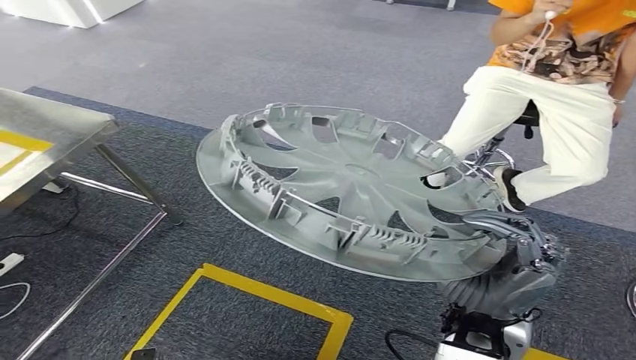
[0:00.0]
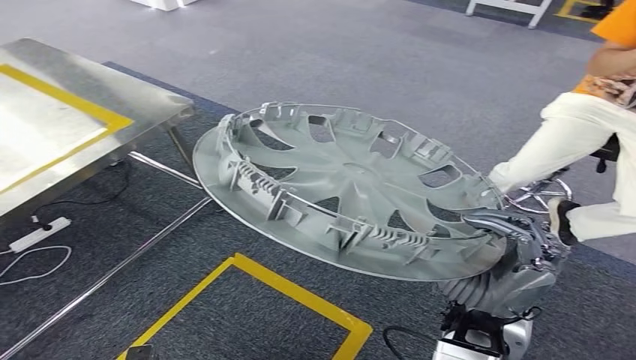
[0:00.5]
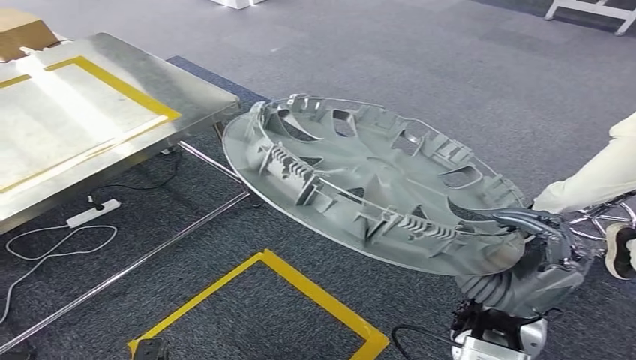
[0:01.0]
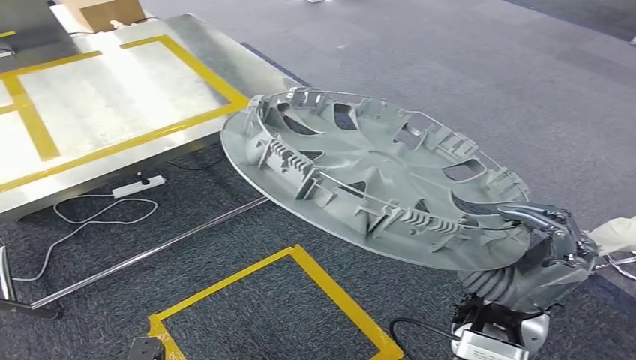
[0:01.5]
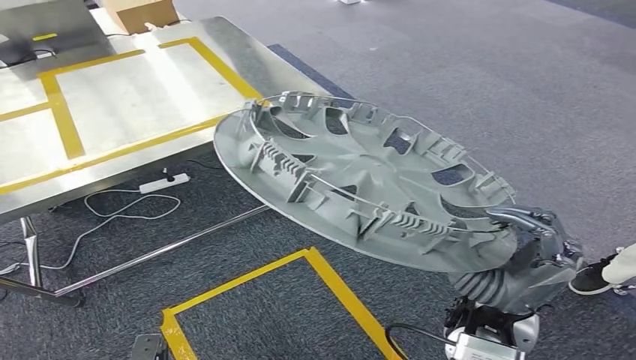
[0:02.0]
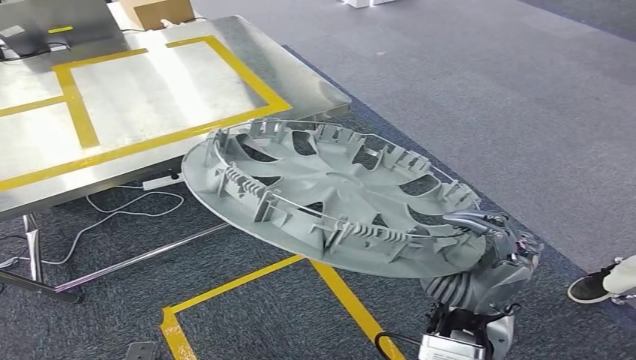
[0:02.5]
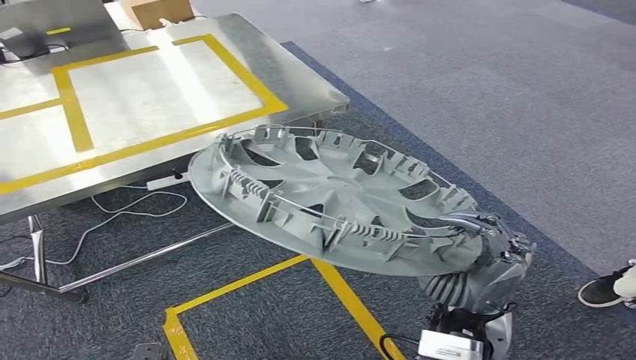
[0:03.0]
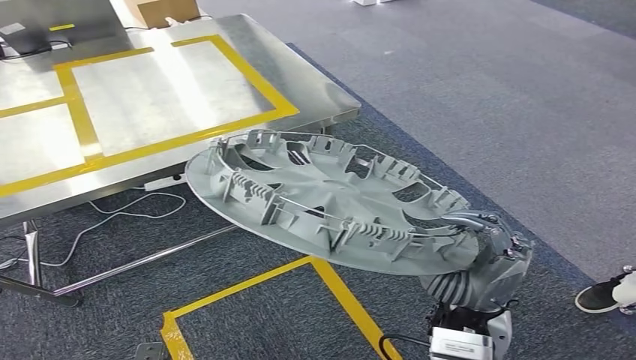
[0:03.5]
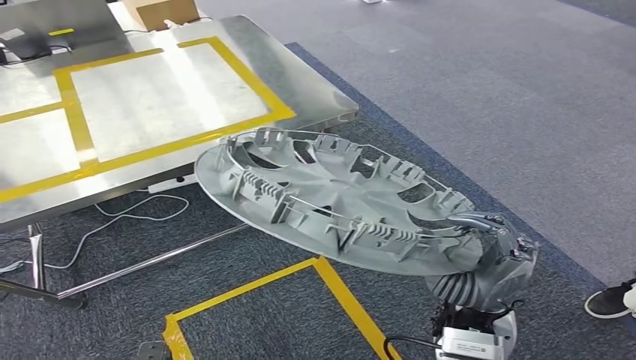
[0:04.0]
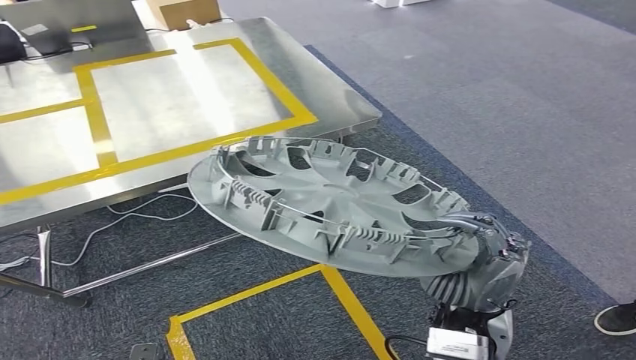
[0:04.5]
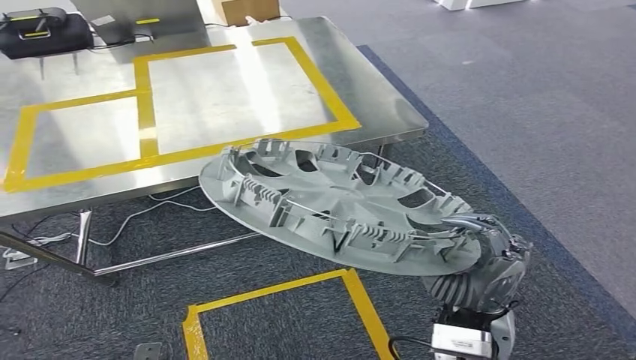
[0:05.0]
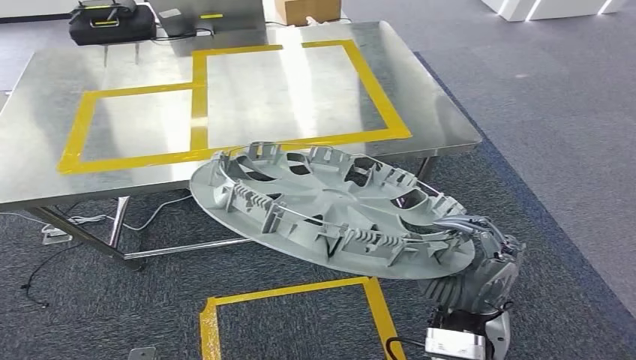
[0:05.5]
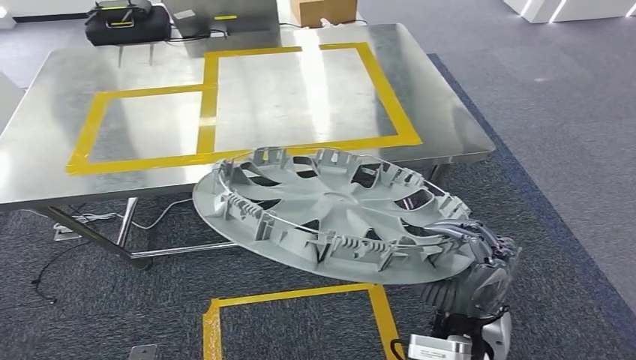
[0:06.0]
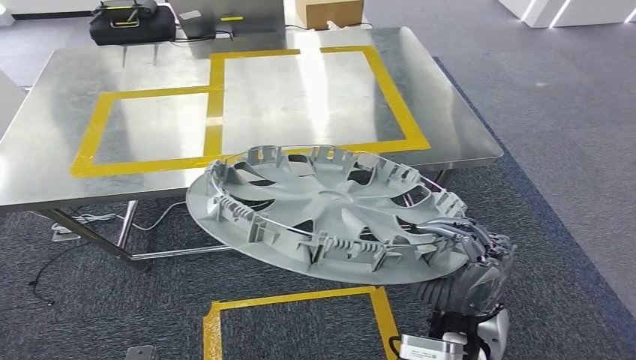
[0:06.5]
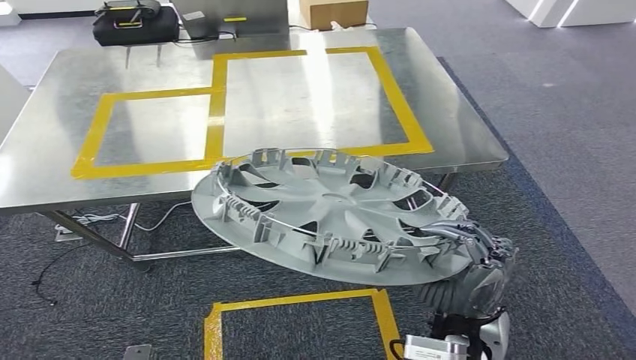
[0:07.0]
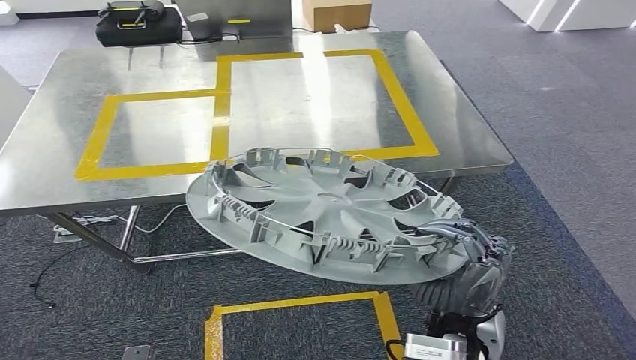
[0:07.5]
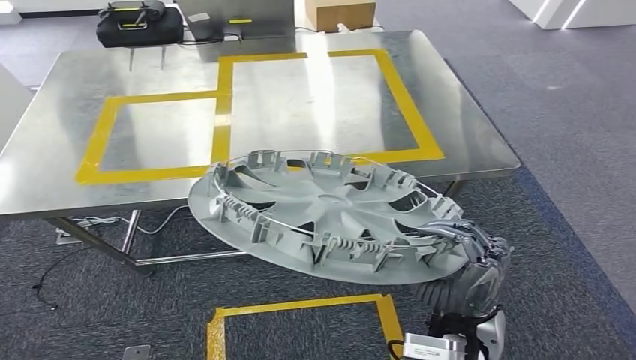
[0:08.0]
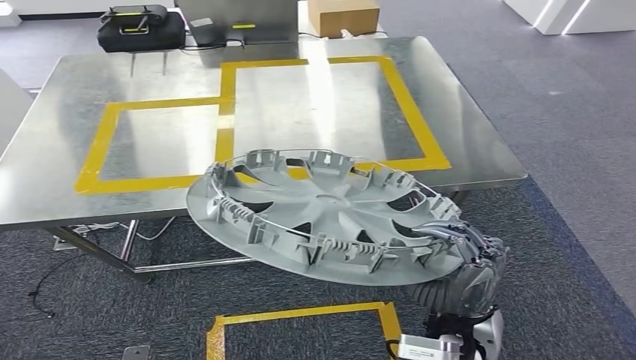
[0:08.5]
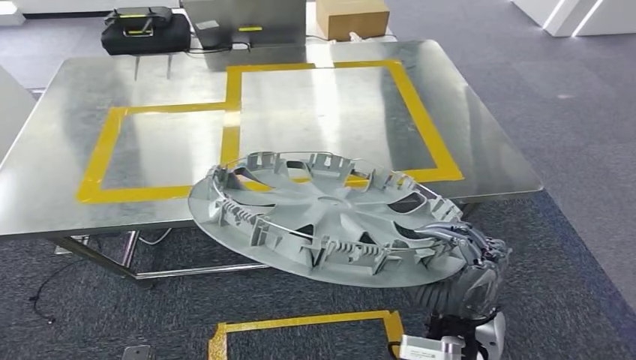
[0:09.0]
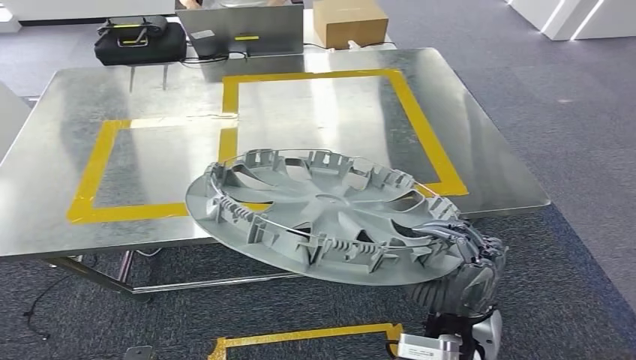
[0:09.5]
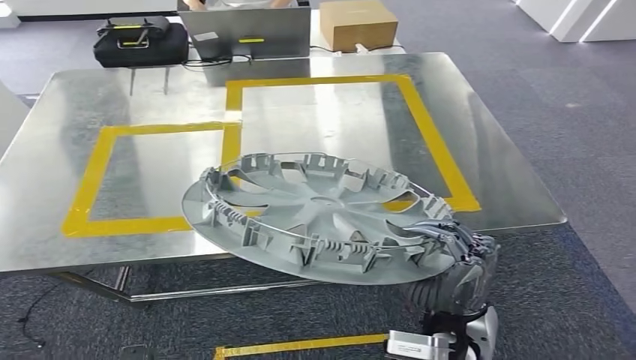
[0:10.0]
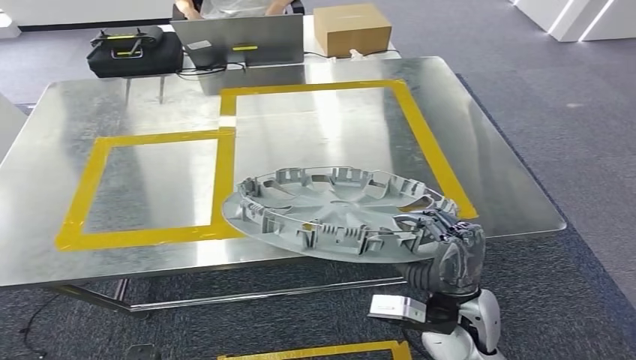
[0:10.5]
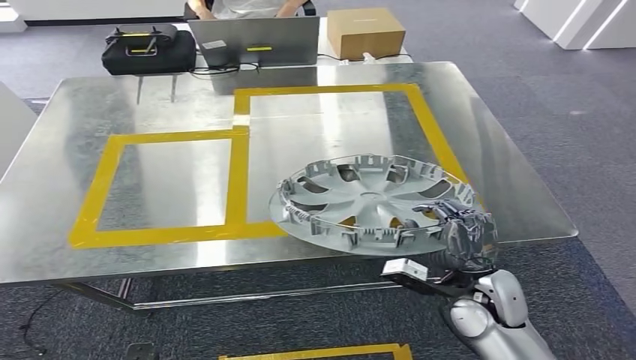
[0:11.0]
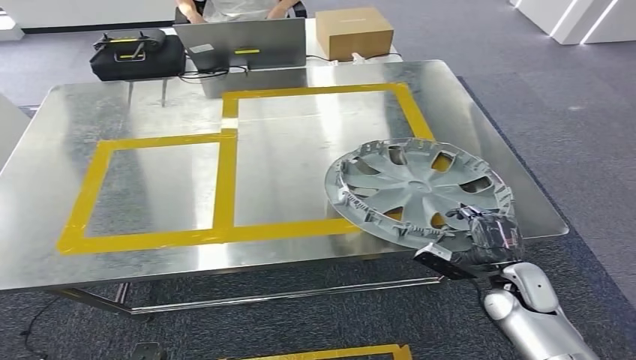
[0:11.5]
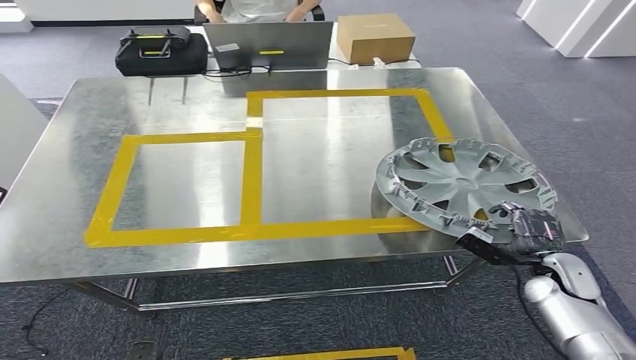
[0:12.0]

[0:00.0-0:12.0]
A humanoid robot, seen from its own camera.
Step, 0:00.0 to 0:03.5: Move the small component to the workbench.

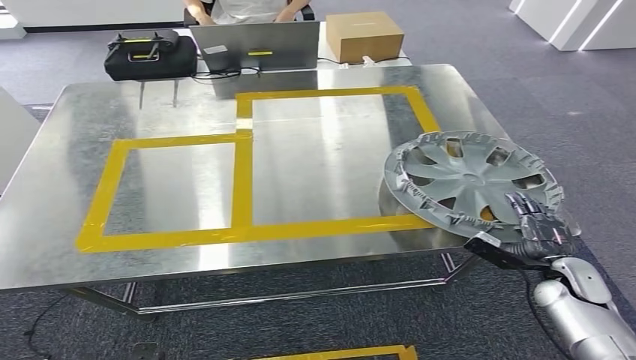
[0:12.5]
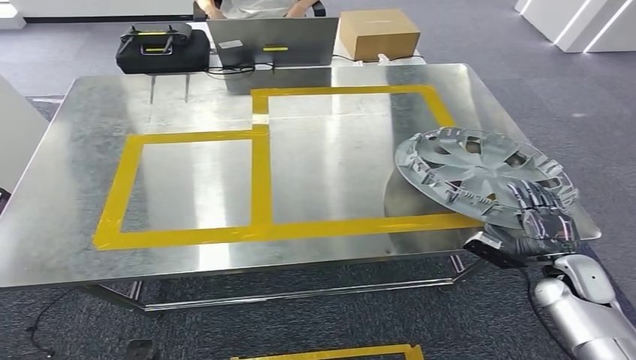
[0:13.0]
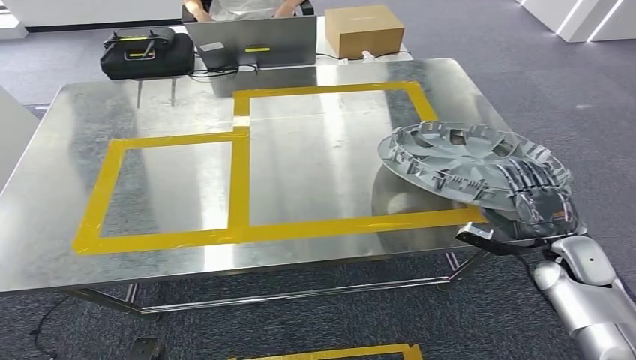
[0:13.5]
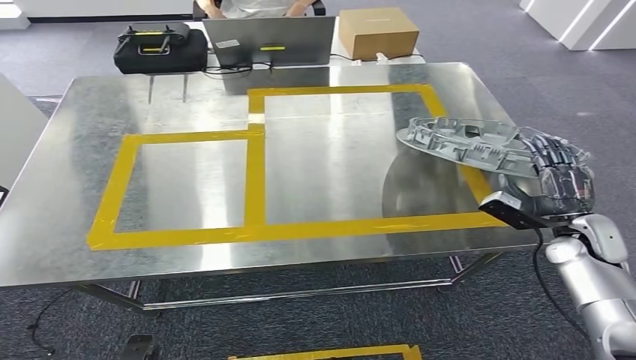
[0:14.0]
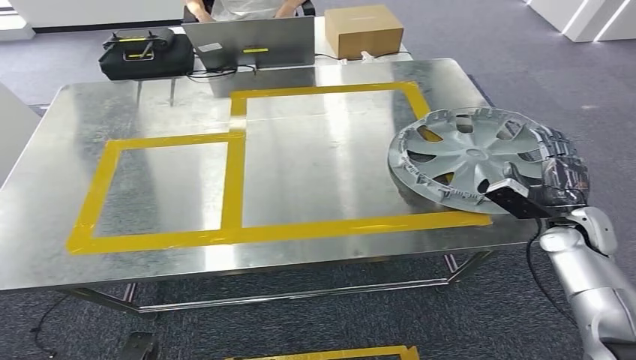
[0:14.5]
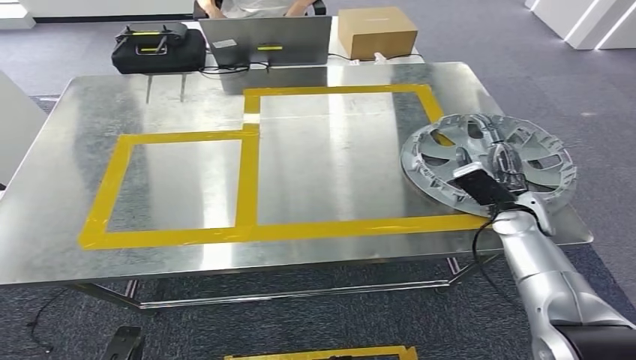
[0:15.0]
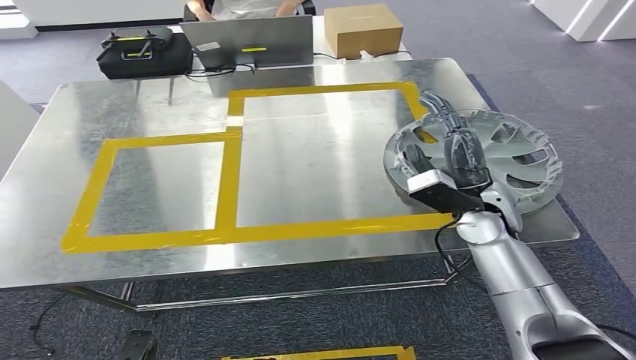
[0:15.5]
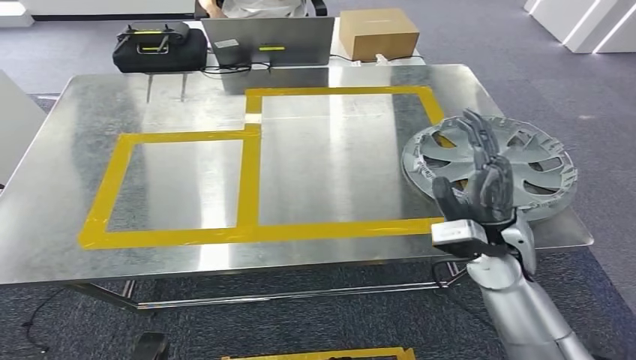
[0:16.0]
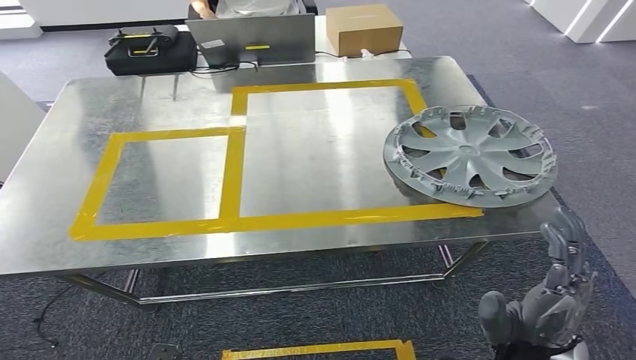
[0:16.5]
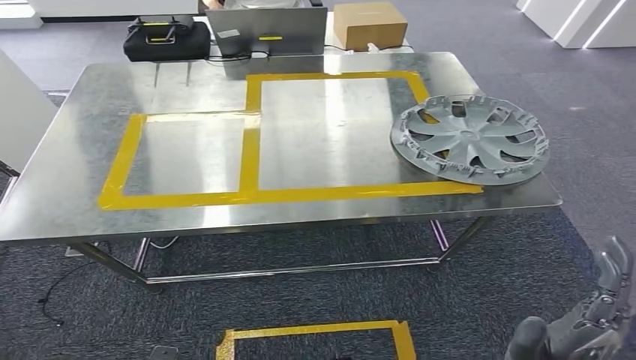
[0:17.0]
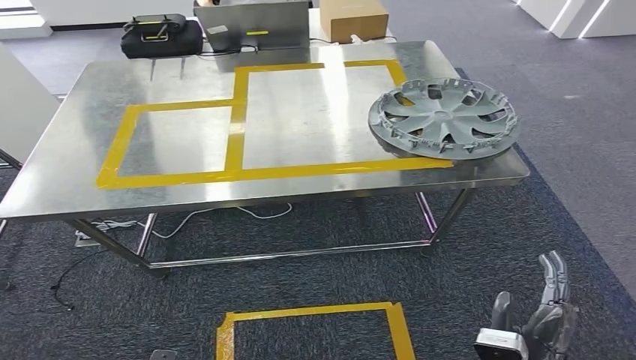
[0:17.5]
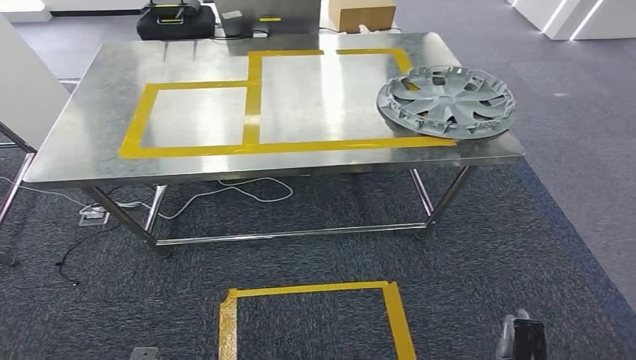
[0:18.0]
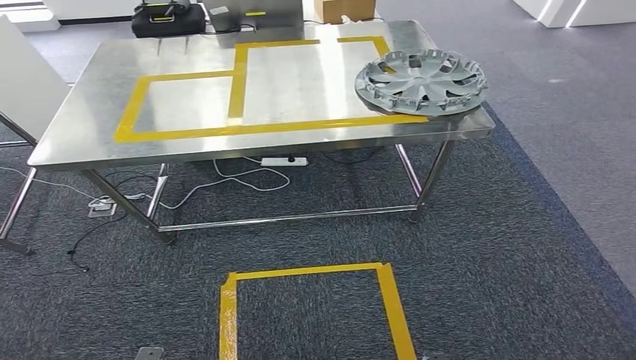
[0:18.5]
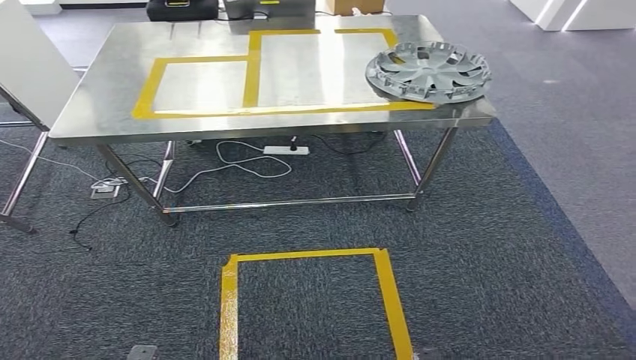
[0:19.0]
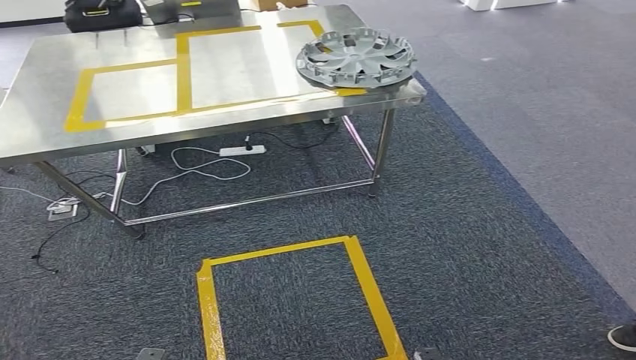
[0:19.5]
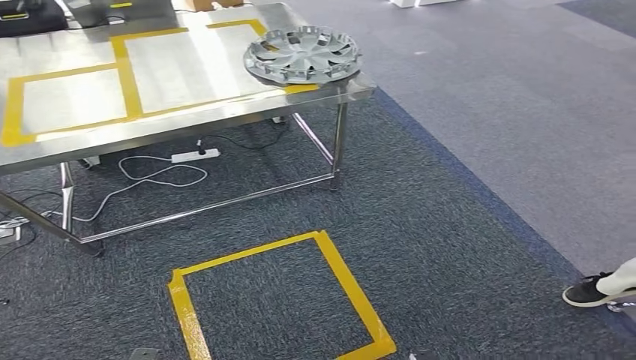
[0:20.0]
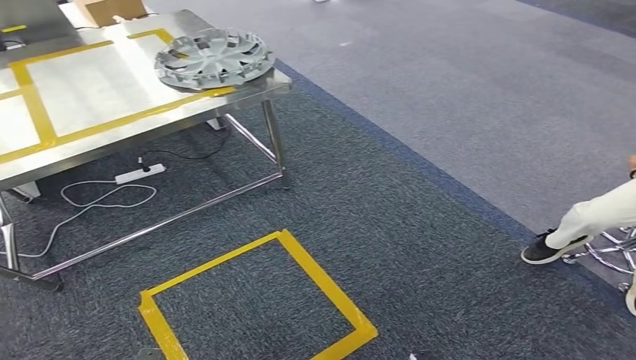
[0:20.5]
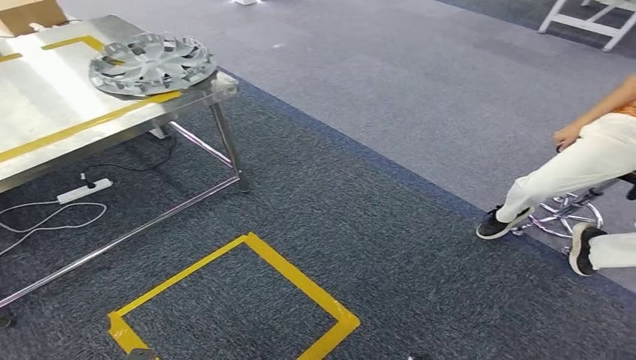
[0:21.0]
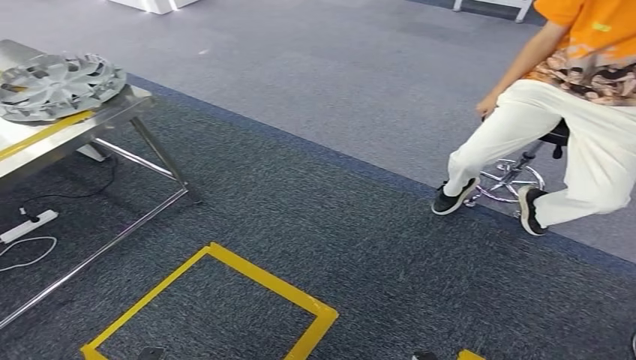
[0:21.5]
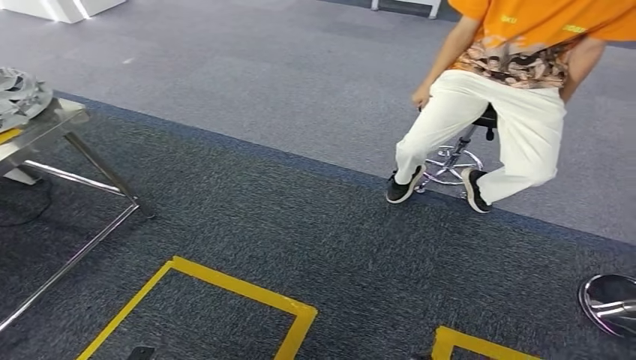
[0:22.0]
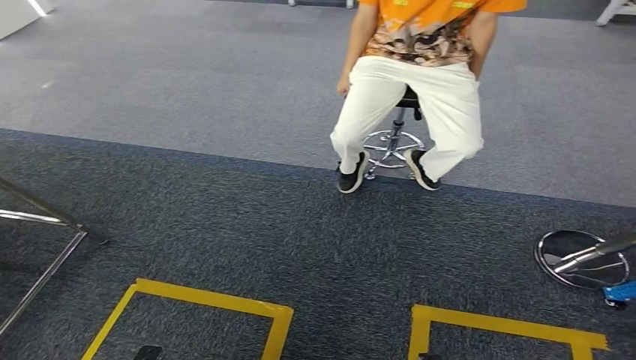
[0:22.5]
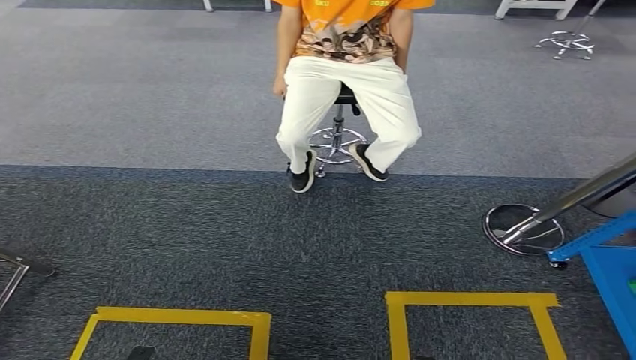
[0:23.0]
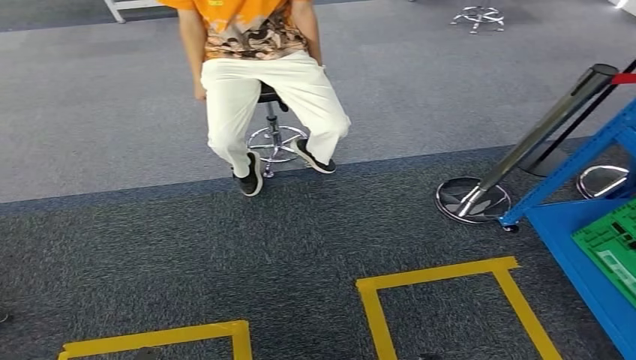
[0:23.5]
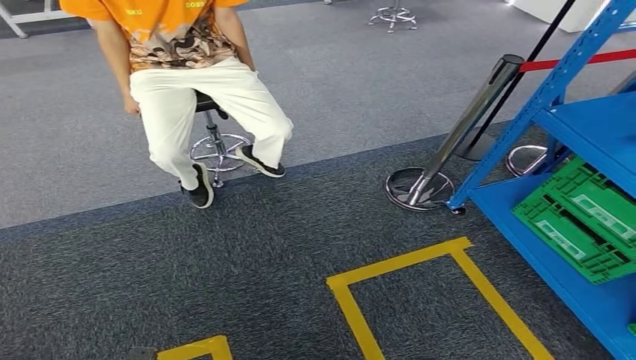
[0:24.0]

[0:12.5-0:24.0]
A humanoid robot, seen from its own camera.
Step, 0:12.5 to 0:15.5: Insert the small component into the corresponding slot on the workbench.
